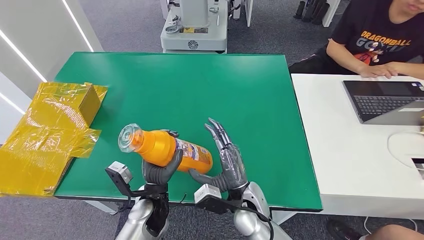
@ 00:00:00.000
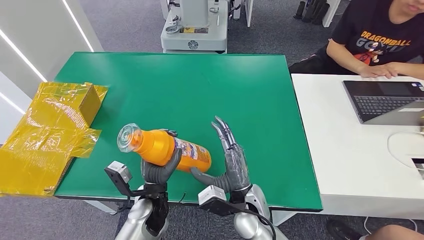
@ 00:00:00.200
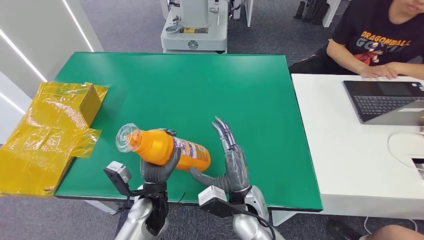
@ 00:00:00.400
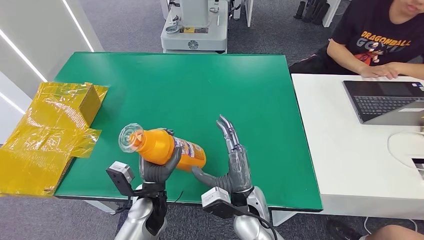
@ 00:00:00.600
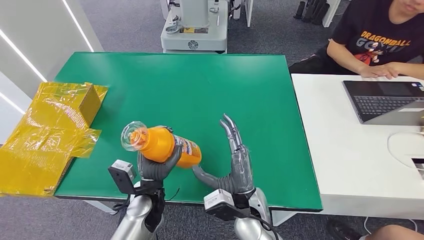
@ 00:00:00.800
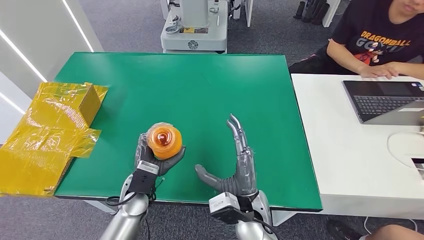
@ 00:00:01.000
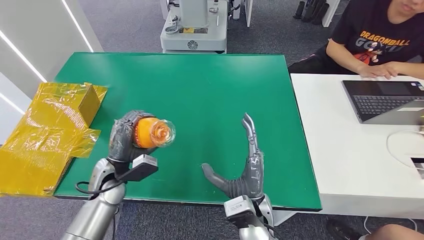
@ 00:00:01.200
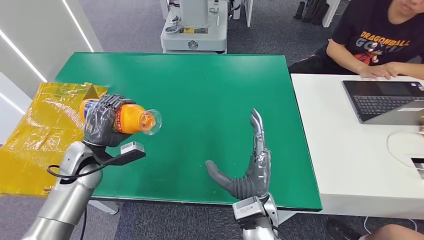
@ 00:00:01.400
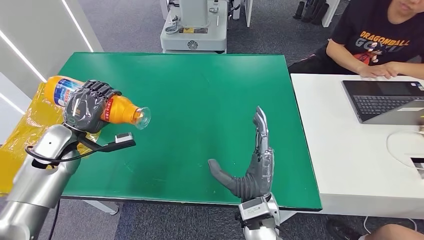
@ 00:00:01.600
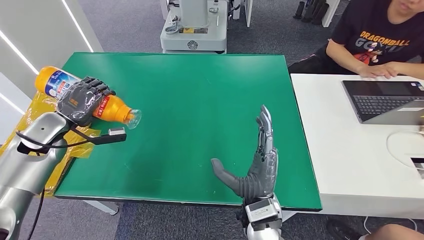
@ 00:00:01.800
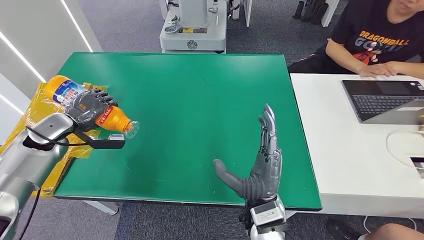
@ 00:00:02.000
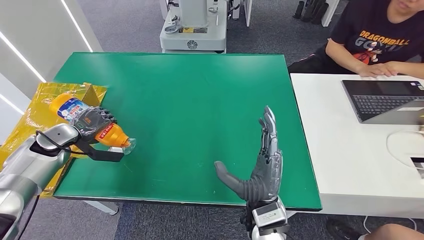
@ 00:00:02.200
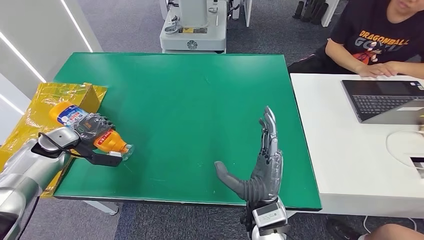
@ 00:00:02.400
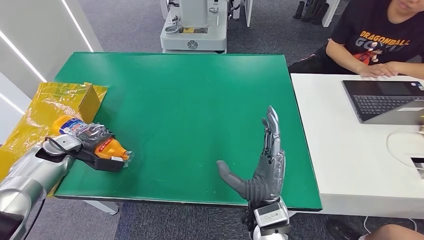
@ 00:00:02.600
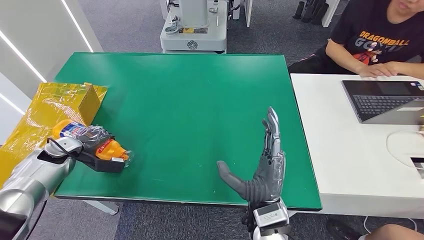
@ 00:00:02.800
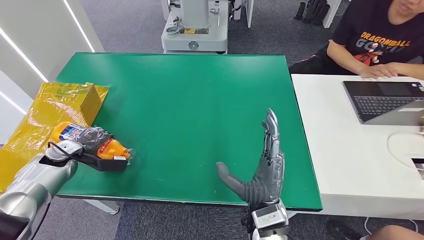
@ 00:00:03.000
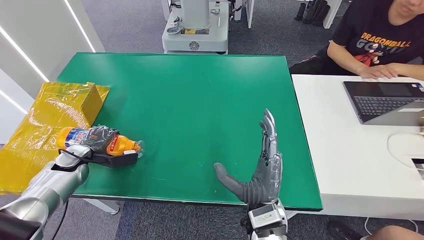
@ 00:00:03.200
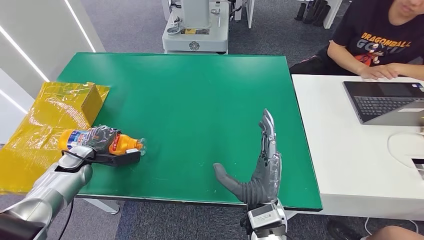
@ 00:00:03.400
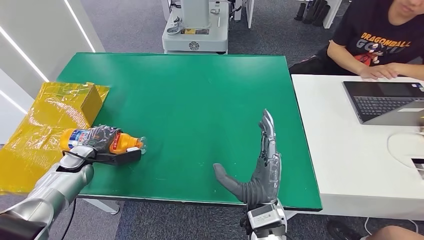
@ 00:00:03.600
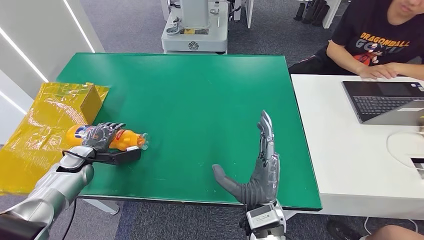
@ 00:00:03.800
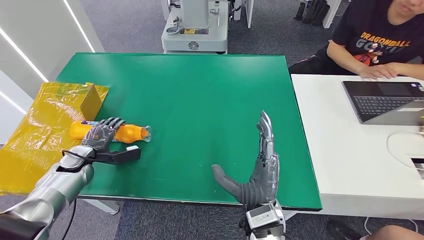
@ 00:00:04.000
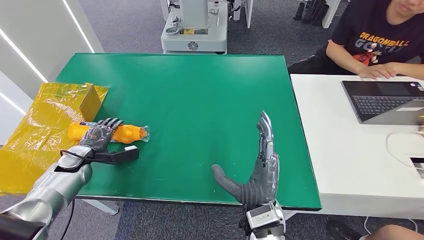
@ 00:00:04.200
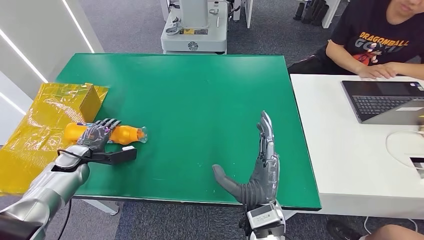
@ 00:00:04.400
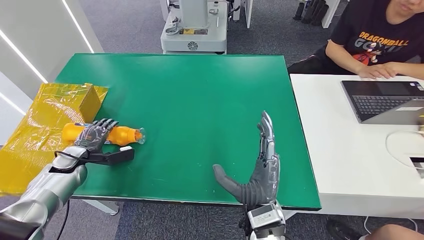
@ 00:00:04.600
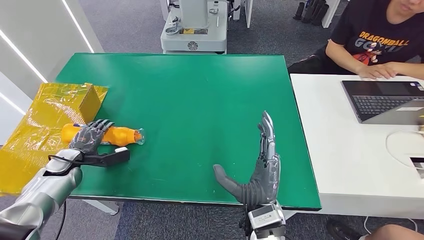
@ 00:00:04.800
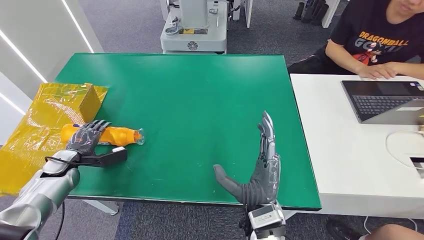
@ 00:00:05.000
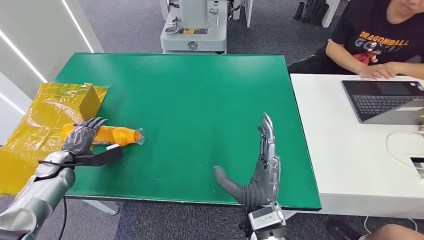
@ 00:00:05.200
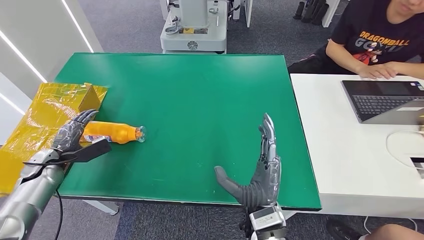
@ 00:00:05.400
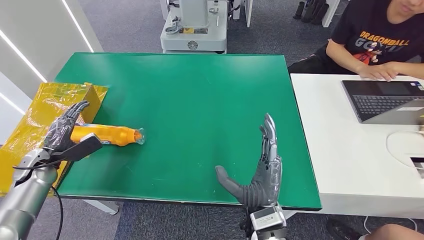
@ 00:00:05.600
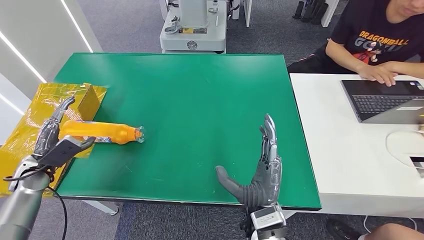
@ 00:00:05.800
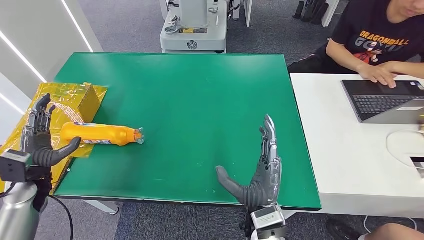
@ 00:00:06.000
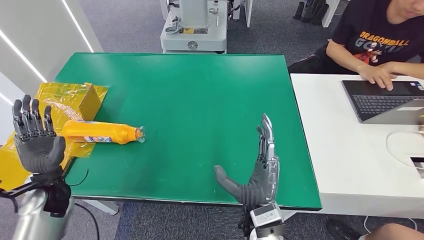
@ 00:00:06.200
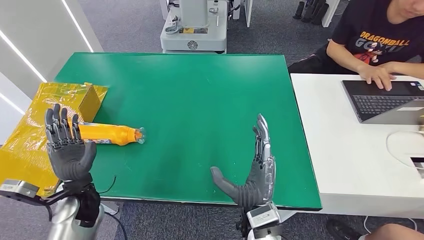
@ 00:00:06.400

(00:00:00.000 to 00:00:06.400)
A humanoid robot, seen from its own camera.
Step, 00:00:00.000 - 00:00:04.600: Turn the bottle to the front side.
00:00:00.000 - 00:00:01.600: The left hand goes some 30 cm to the left, upward and forward. The right hand shifts approximately 5 cm upward.
00:00:01.600 - 00:00:03.200: The left hand heads downward, covering about 10 cm.
00:00:03.200 - 00:00:04.800: The hands stay close to where they were, moving slightly.
00:00:04.800 - 00:00:06.400: The left hand shifts approximately 15 cm to the right and backward.

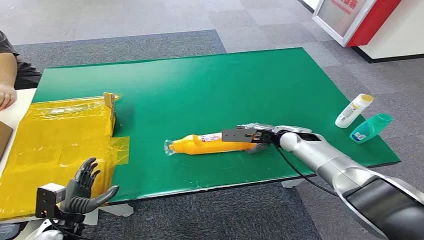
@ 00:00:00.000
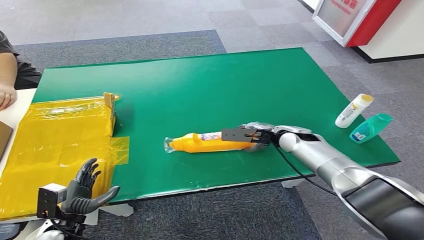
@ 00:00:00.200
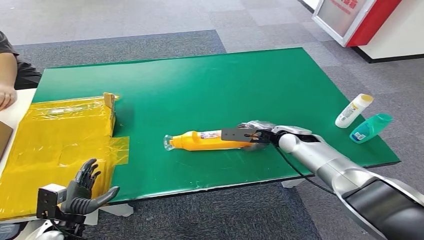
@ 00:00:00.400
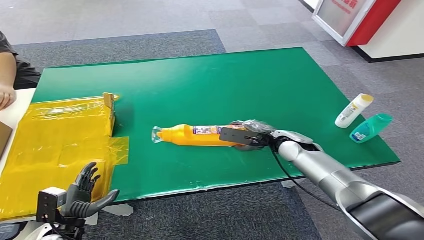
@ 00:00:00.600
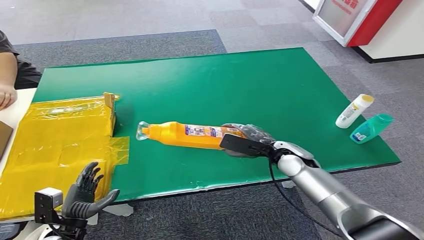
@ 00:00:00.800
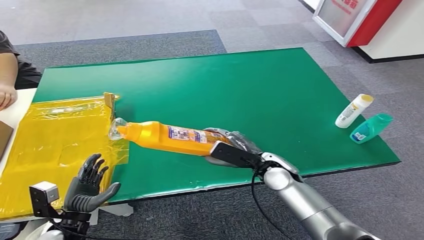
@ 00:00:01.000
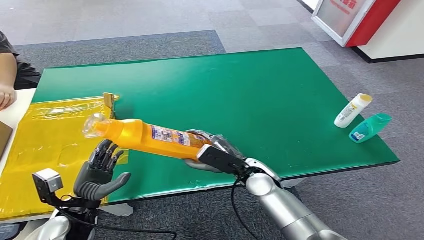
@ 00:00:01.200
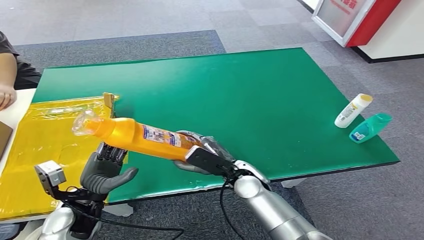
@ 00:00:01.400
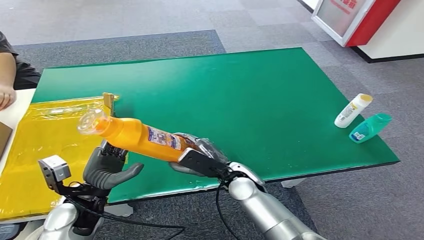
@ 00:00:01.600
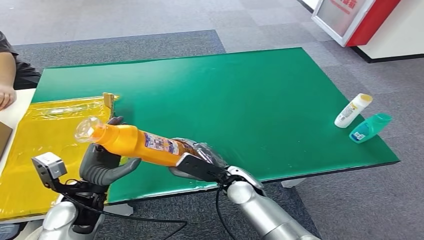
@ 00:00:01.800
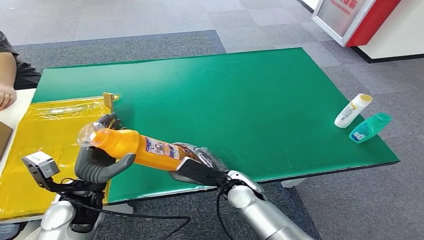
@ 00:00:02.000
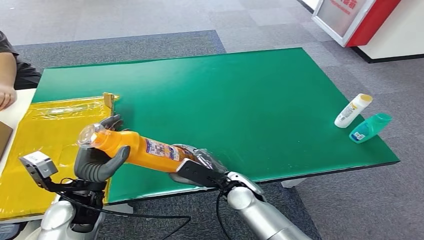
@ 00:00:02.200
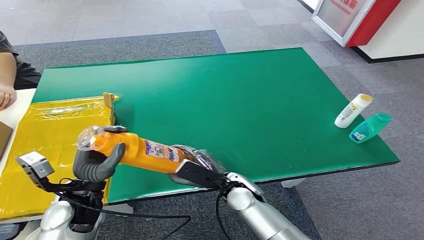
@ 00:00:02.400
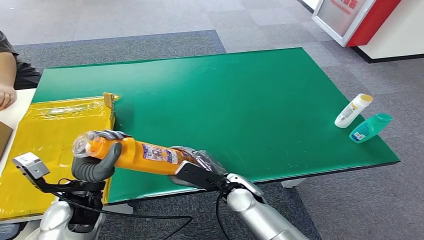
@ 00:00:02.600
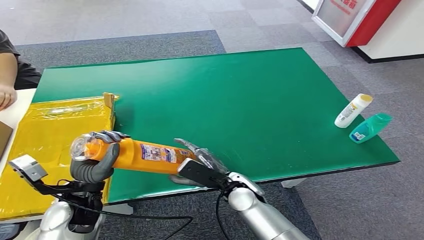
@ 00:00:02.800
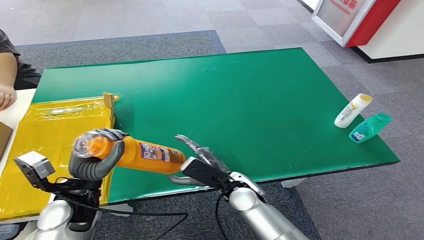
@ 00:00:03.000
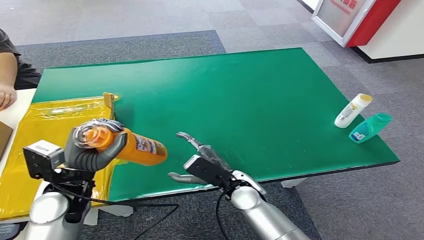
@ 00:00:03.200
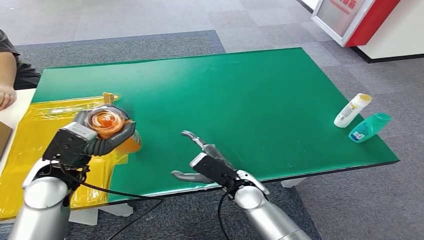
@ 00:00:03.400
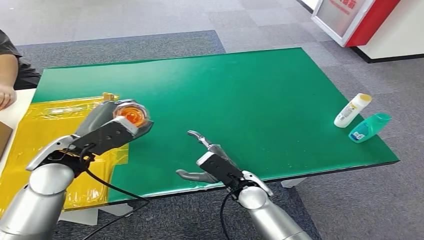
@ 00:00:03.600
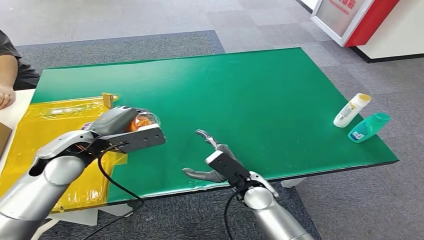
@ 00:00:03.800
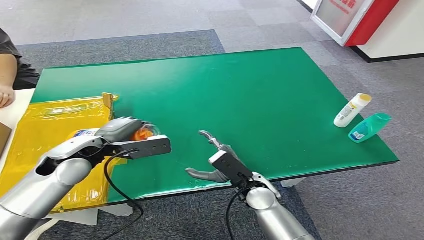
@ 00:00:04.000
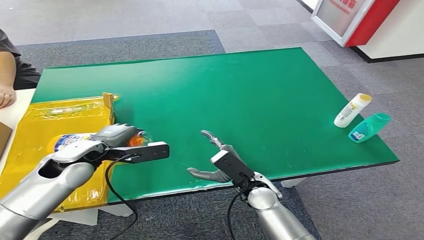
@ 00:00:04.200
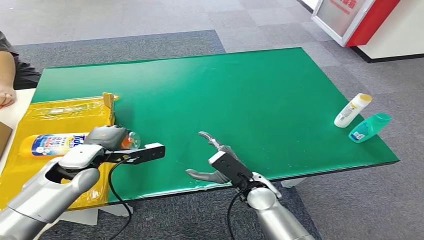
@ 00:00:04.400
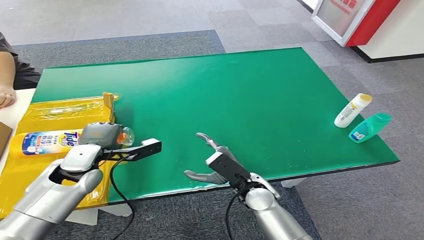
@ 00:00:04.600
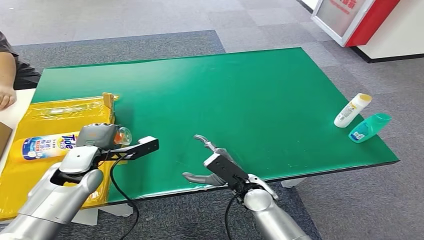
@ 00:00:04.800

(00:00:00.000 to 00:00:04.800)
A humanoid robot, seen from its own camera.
Step, 00:00:00.000 - 00:00:01.200: Pick up the bottle from the table.
Step, 00:00:01.400 - 00:00:04.800: Turn the bottle to the front side.
00:00:01.600 - 00:00:03.200: The left hand heads upward, covering some 5 cm.
00:00:03.200 - 00:00:04.800: The left hand travels forward by about 10 cm, and moves some 5 cm upward and comes back.
